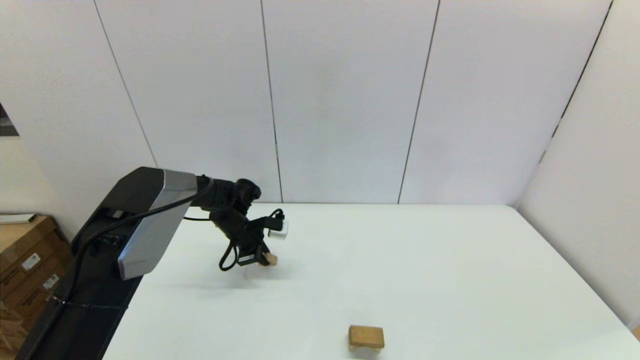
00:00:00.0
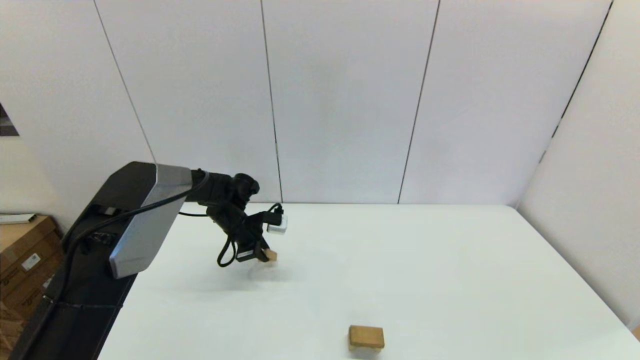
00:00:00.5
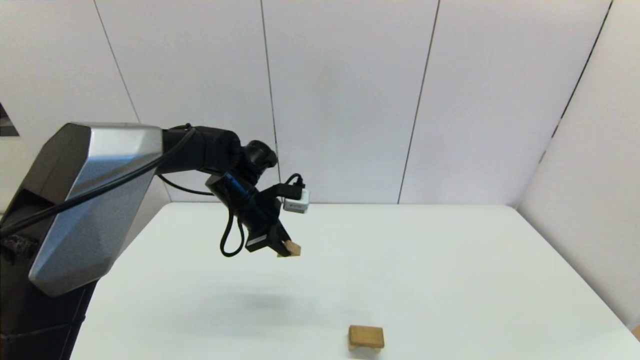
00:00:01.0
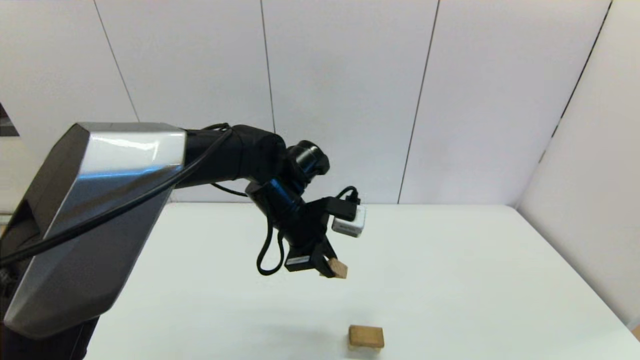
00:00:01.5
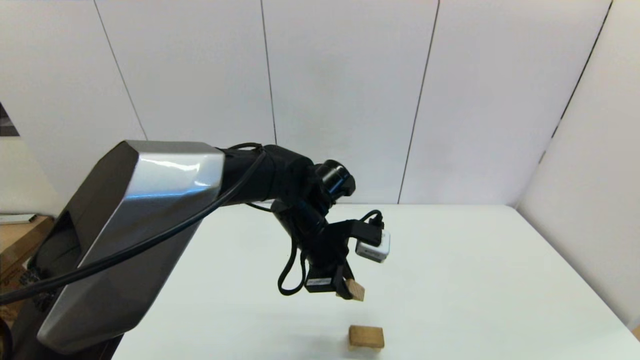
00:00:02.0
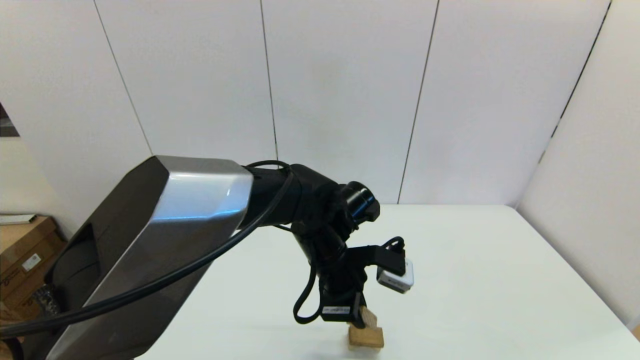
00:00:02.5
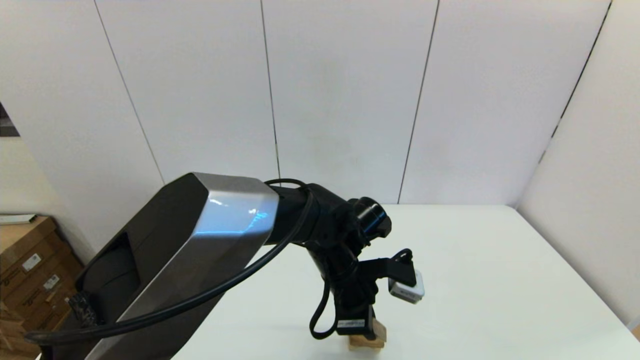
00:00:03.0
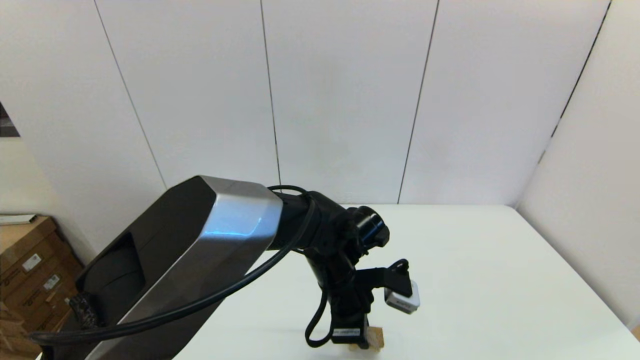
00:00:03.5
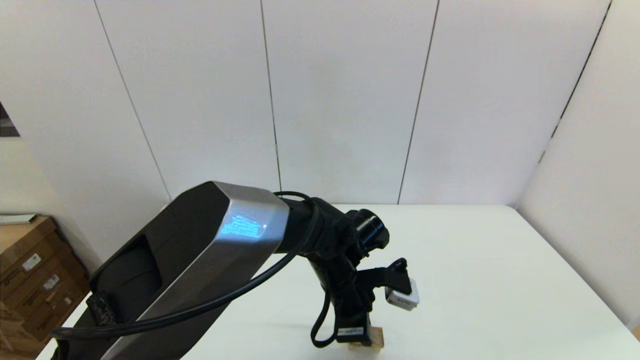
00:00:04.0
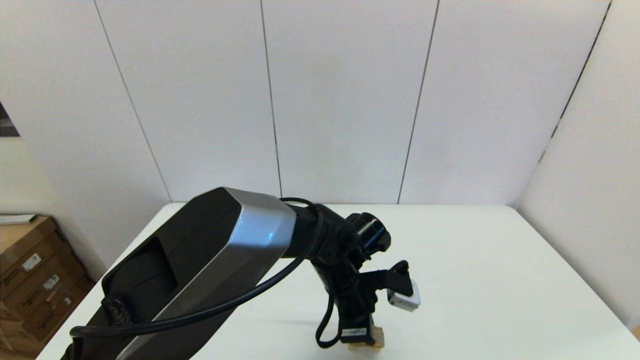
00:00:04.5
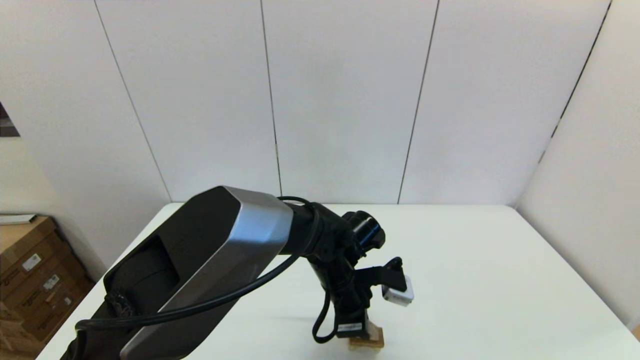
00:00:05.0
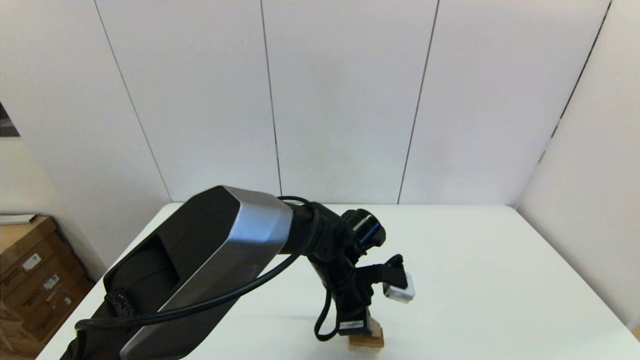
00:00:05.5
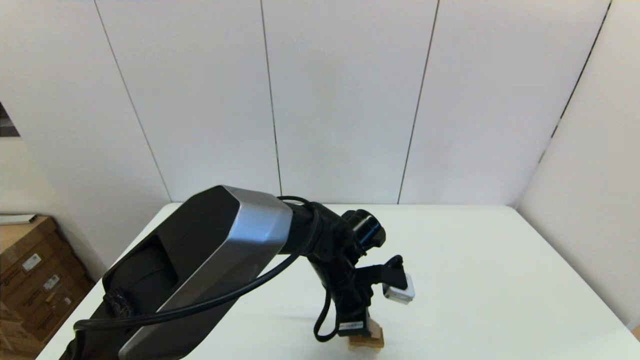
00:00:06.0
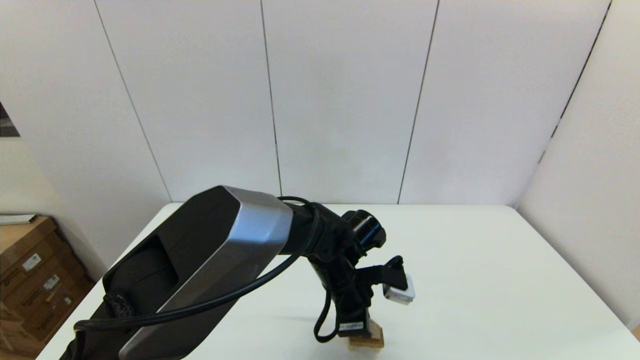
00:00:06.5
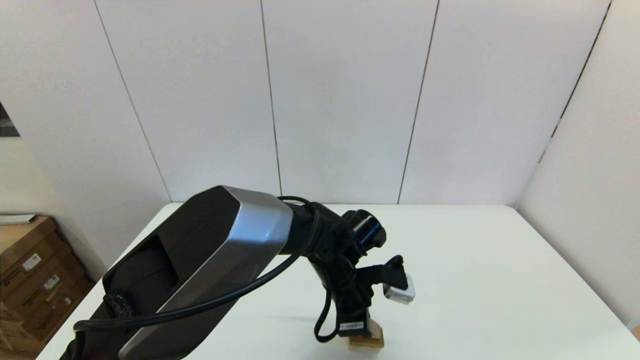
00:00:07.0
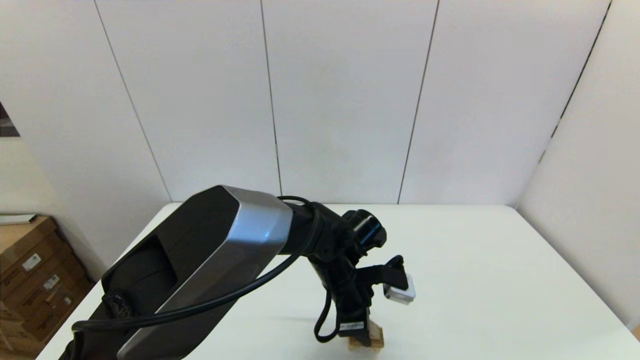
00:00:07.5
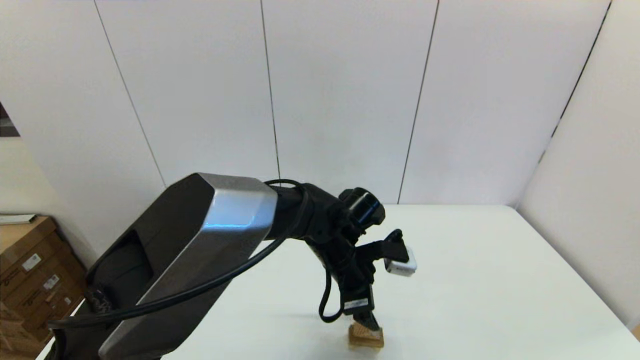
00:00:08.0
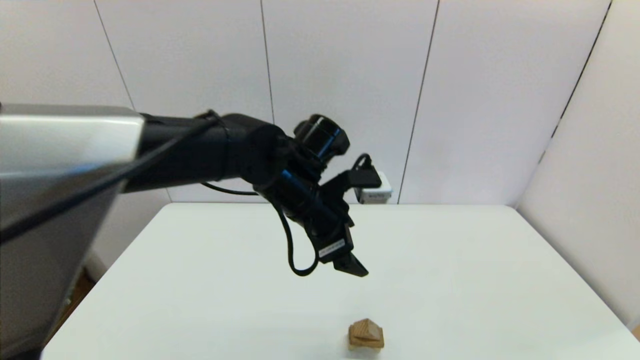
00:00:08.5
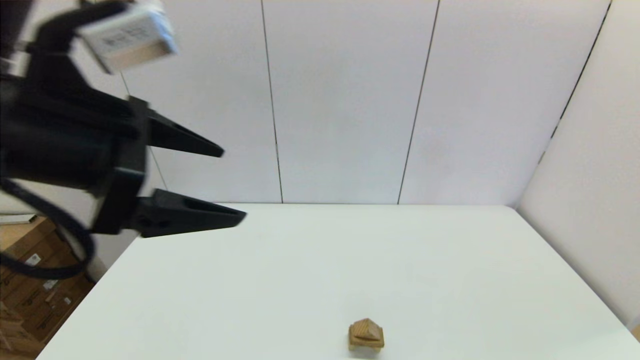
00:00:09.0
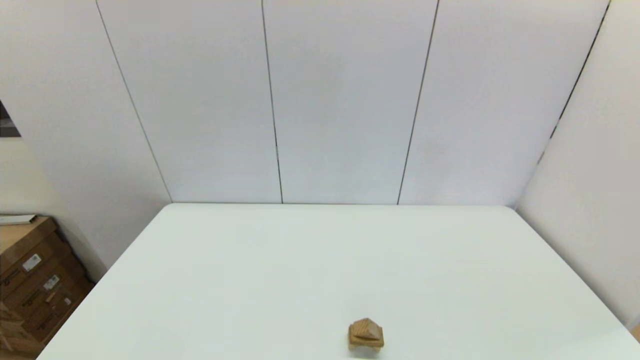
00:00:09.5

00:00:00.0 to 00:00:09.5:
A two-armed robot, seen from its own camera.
Task of the whole recording: place the arched building blocks in the center of the table, set up the rectangular building blocks, and then set up the triangular building blocks.
00:00:00.0 to 00:00:02.0: The left gripper is displaced to the right, backward and upward by approximately 25 cm.
00:00:02.0 to 00:00:04.0: The left gripper is displaced downward by some 5 cm.
00:00:04.0 to 00:00:05.5: There are only small adjustments of the grippers.
00:00:05.5 to 00:00:07.5: The left gripper opens up.
00:00:07.5 to 00:00:09.5: The left gripper moves to the left, upward and backward, about 50 cm, and opens its fingers.

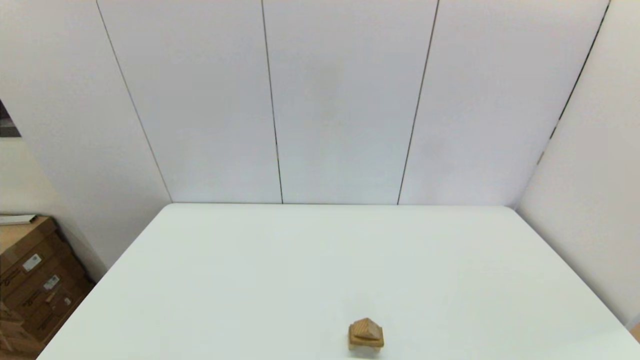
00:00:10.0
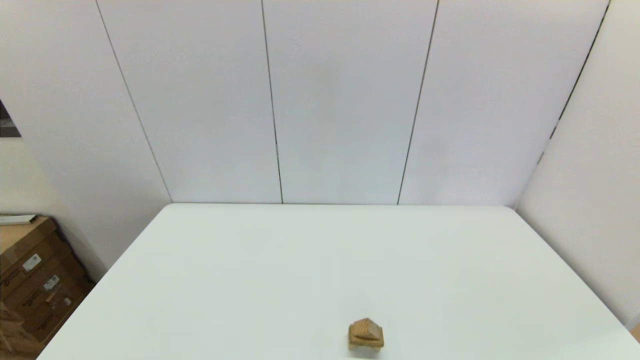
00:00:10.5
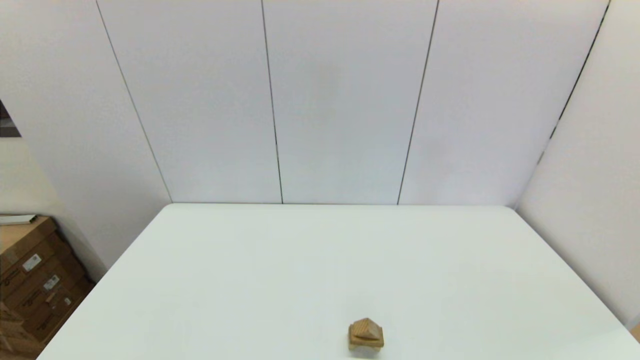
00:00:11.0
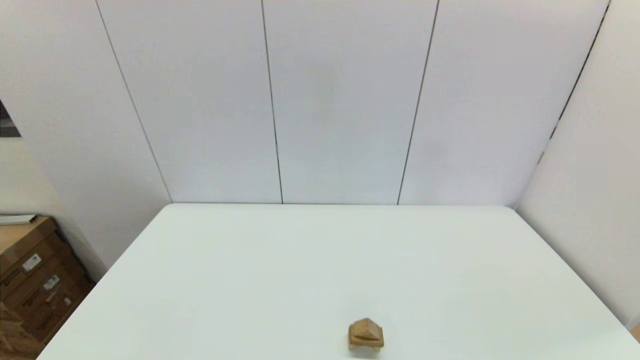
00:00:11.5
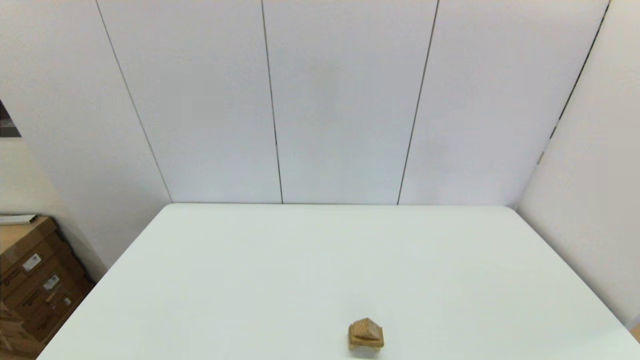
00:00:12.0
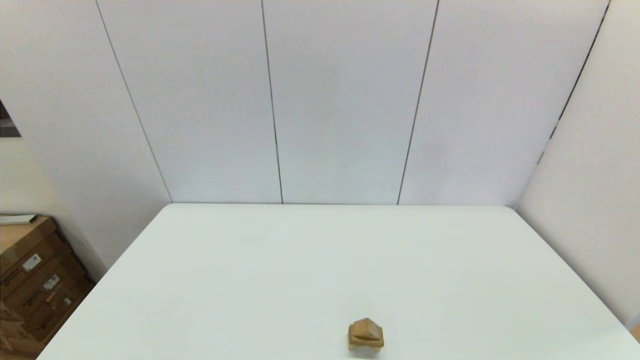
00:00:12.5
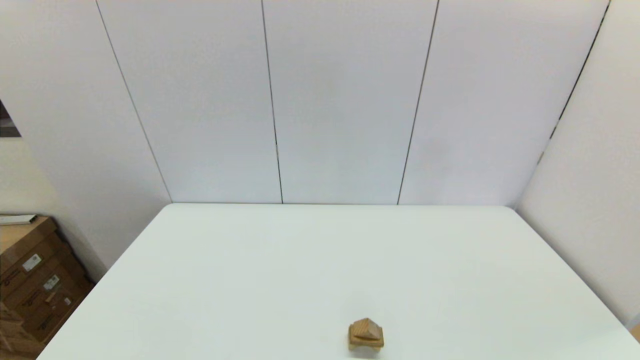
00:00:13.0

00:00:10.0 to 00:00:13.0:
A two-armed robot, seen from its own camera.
Task of the whole recording: place the arched building blocks in the center of the table, set up the rectangular building blocks, and then set up the triangular building blocks.
00:00:11.5 to 00:00:13.0: Both grippers stay put.
